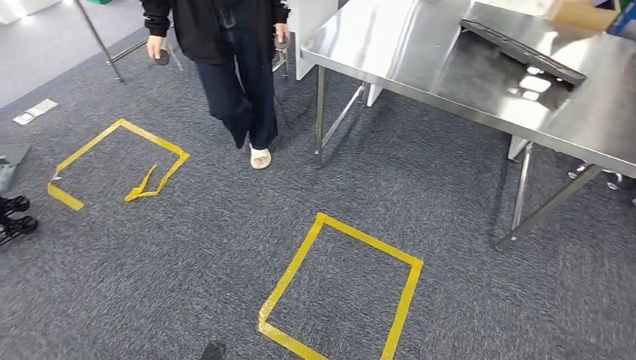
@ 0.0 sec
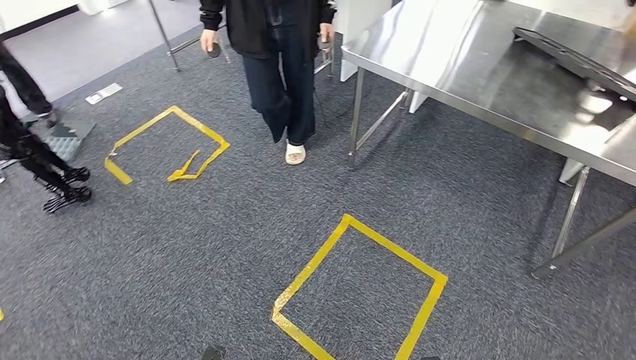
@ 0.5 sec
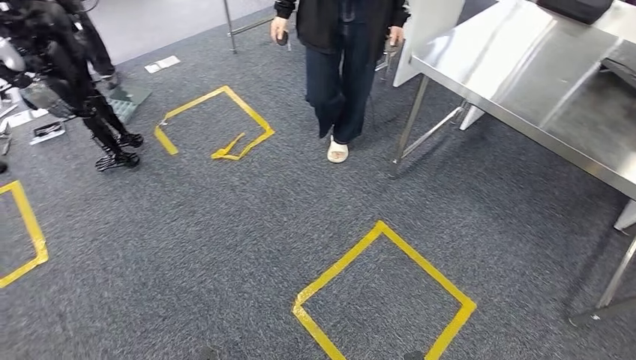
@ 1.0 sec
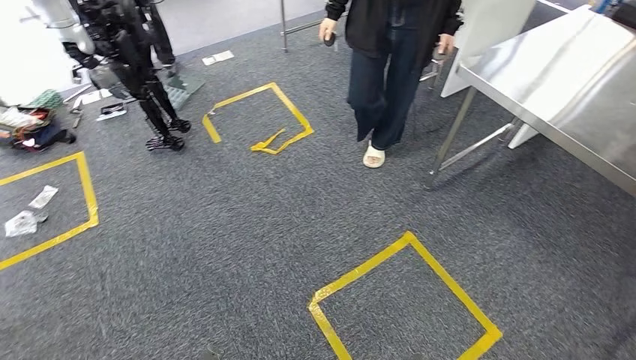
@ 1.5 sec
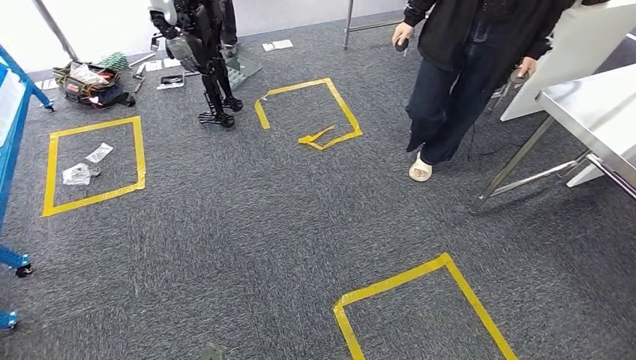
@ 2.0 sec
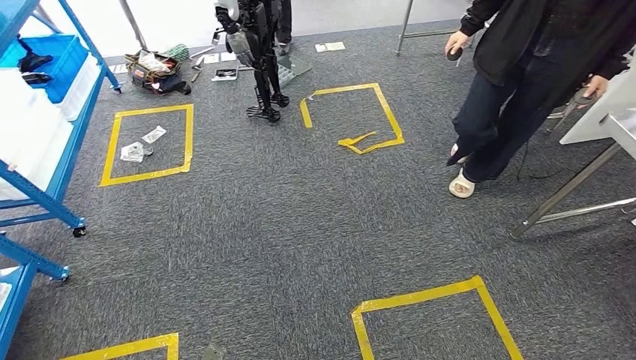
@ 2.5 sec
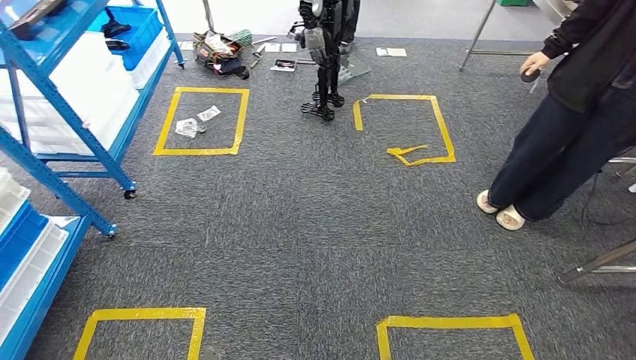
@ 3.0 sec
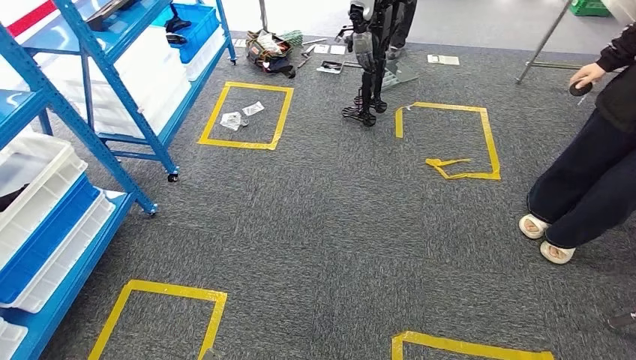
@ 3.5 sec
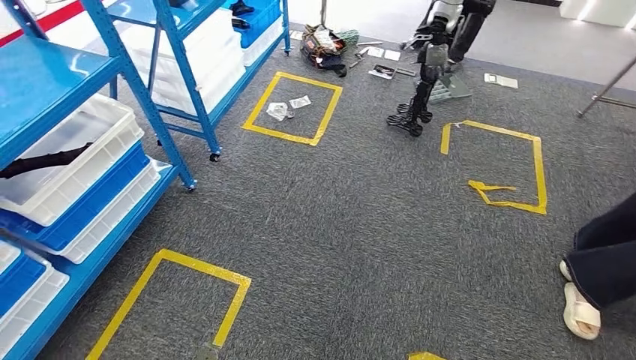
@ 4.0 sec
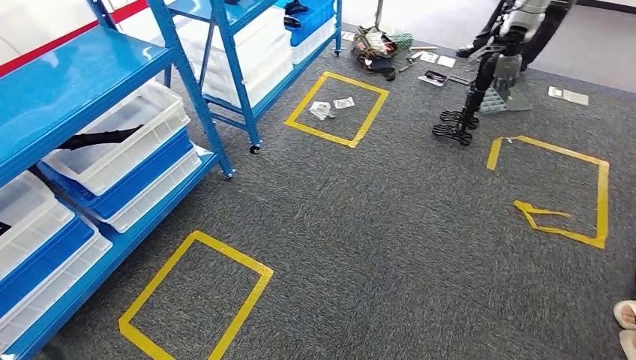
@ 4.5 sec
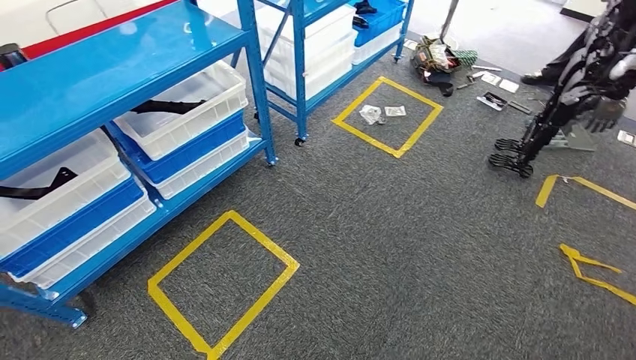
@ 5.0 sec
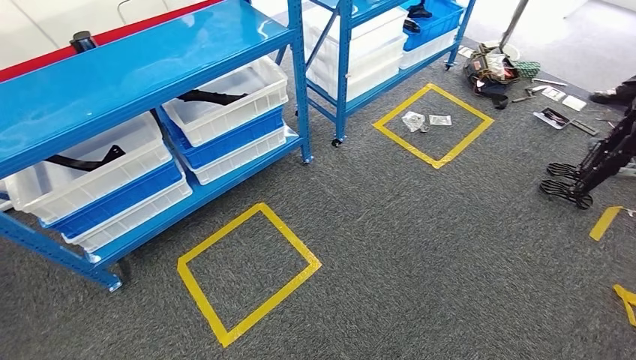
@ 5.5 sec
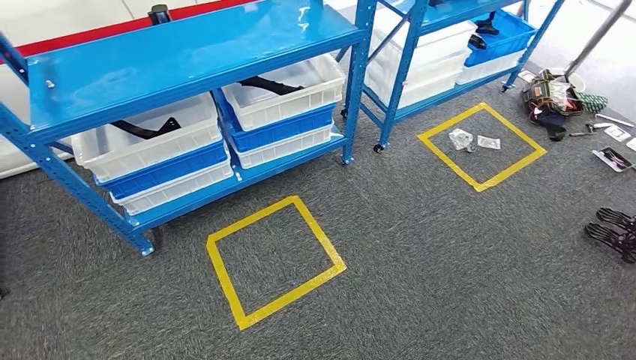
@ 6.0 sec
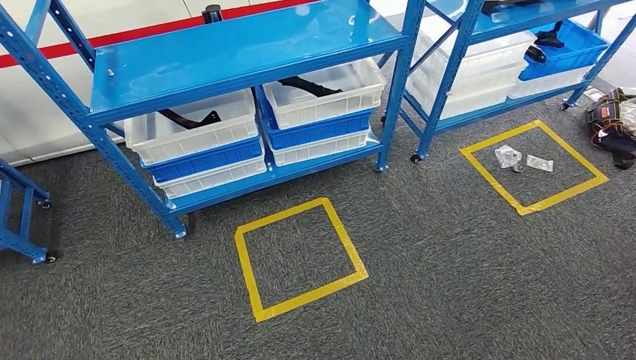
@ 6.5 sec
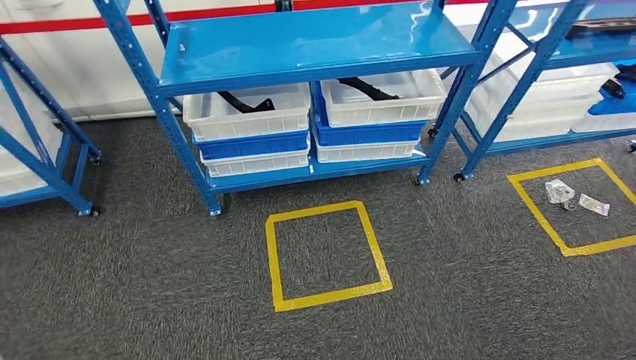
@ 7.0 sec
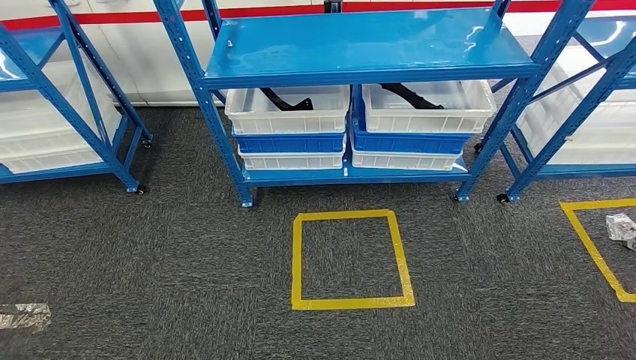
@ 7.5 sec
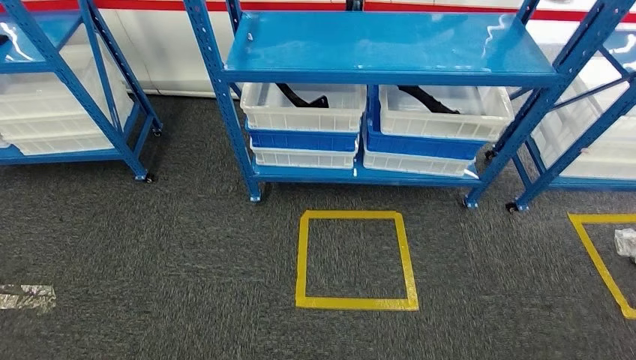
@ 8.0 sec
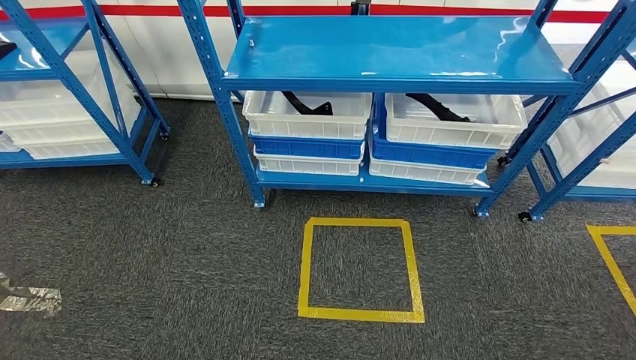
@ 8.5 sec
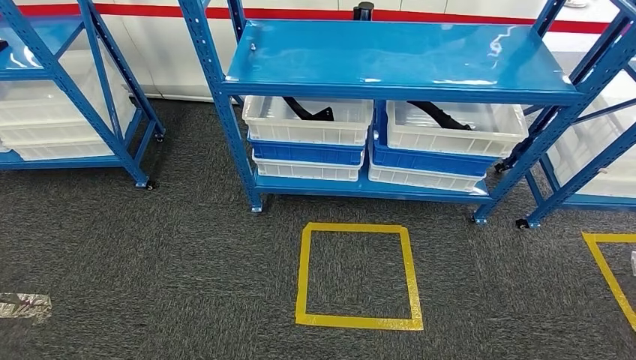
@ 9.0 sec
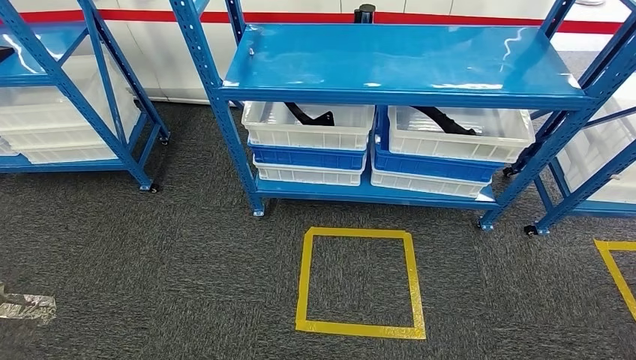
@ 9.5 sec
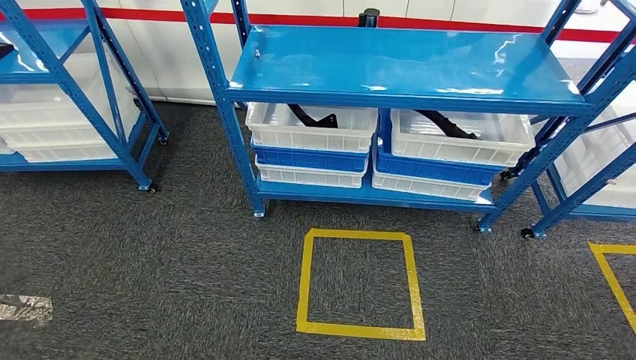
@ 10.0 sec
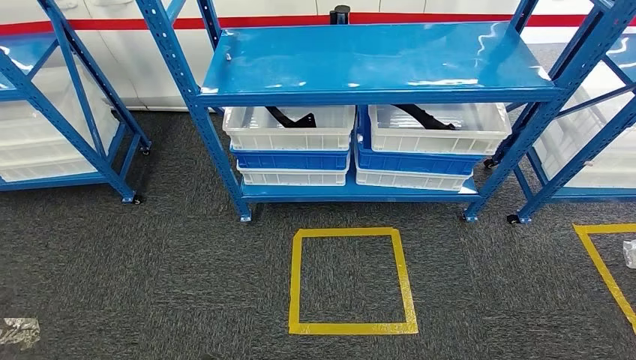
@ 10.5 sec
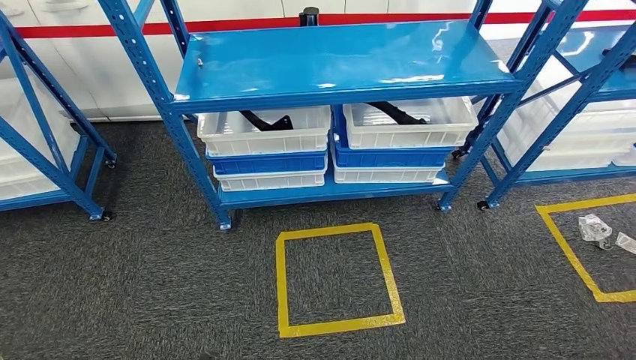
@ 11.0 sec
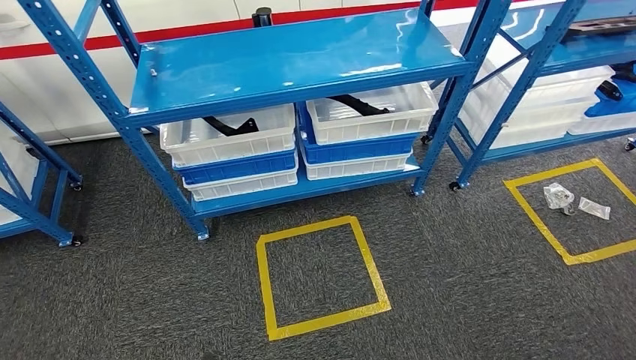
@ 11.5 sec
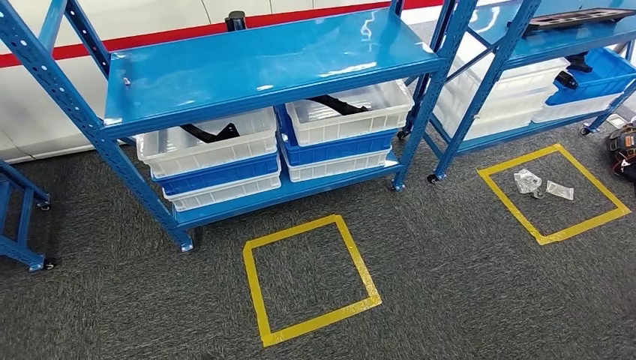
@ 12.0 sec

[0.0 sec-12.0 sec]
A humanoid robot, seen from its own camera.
Step, 0.0 sec to 12.0 sec: Move to the initial position of the shelf.
